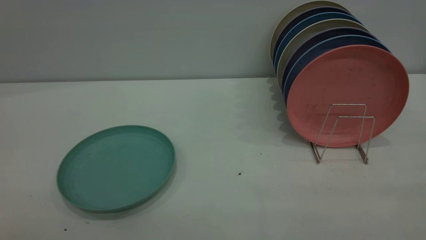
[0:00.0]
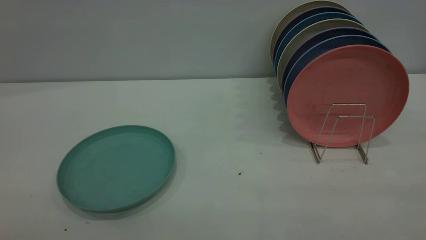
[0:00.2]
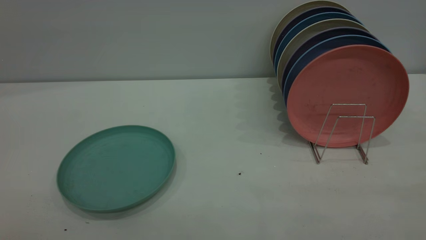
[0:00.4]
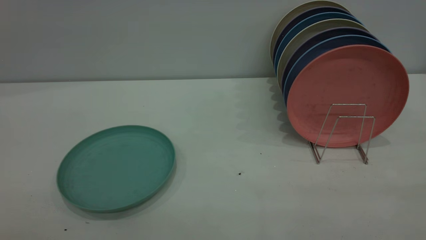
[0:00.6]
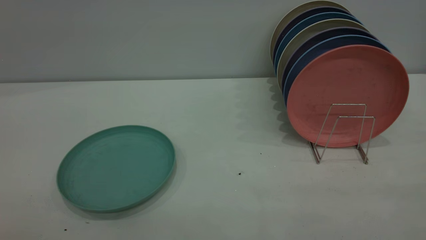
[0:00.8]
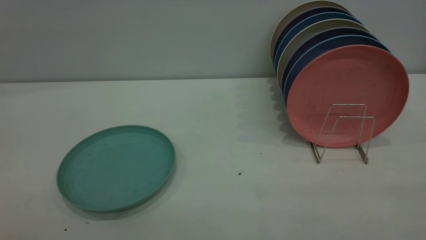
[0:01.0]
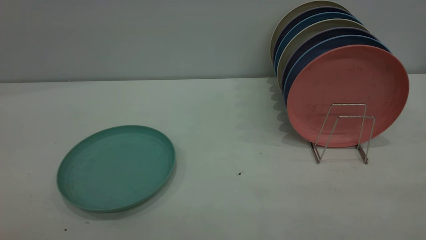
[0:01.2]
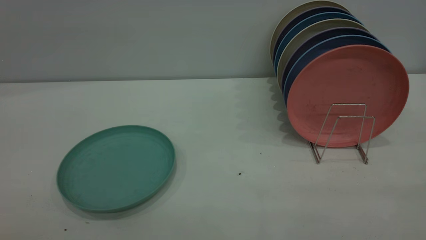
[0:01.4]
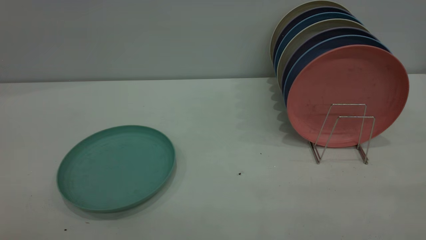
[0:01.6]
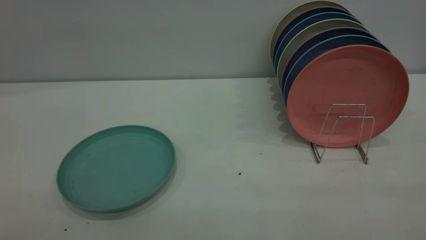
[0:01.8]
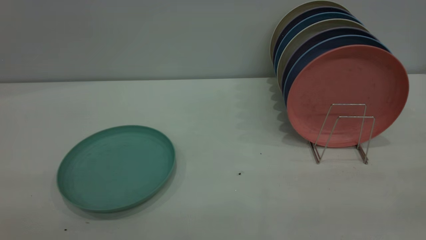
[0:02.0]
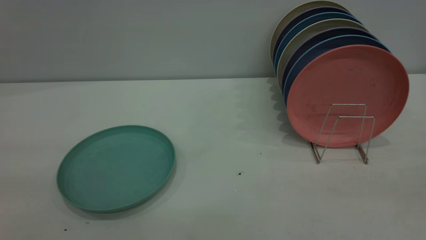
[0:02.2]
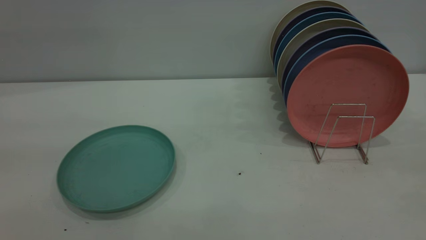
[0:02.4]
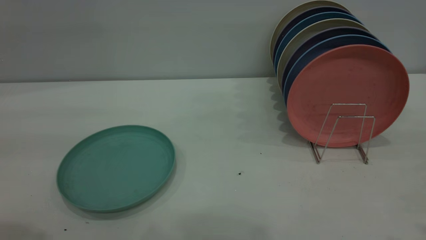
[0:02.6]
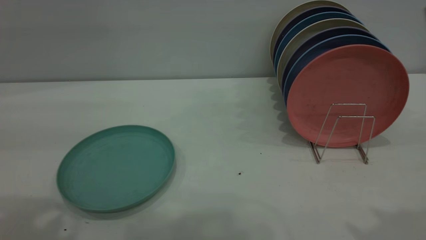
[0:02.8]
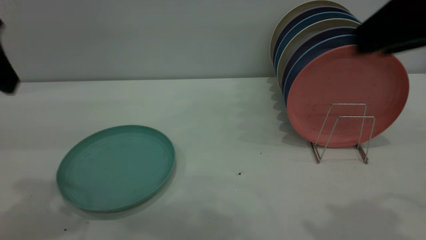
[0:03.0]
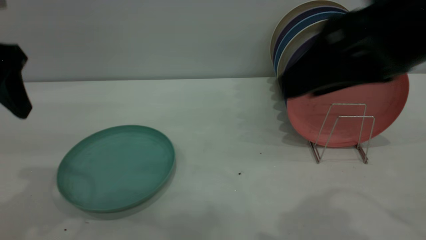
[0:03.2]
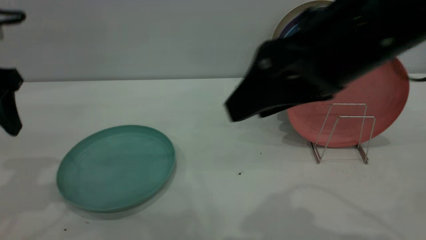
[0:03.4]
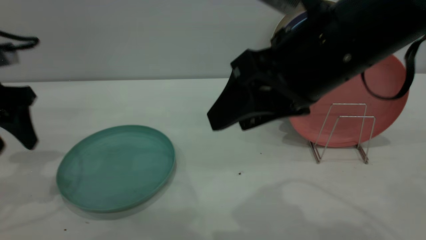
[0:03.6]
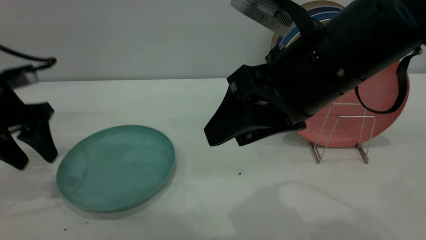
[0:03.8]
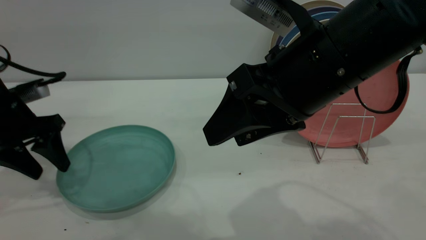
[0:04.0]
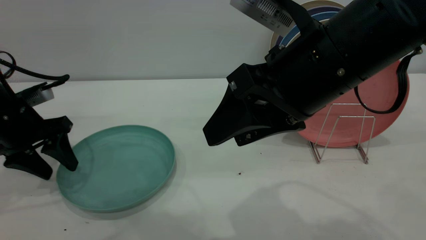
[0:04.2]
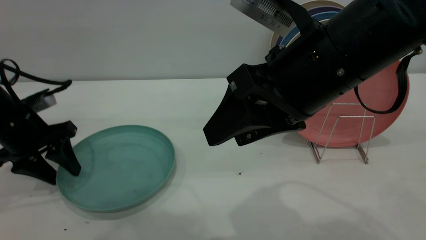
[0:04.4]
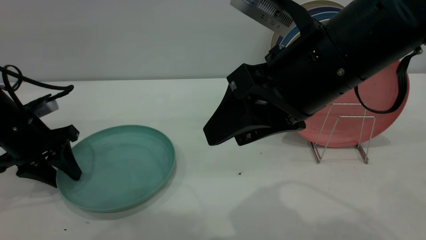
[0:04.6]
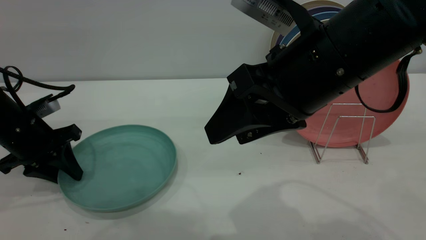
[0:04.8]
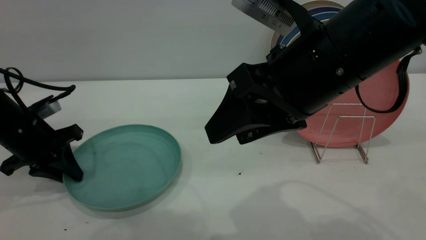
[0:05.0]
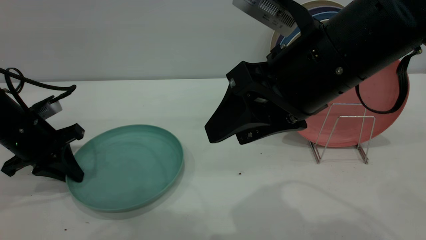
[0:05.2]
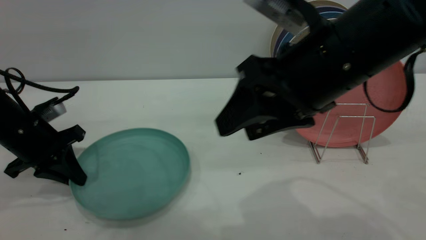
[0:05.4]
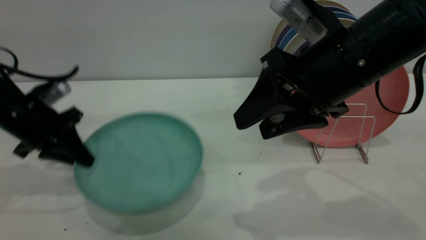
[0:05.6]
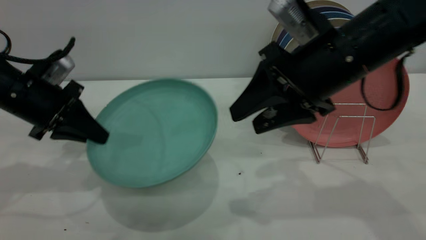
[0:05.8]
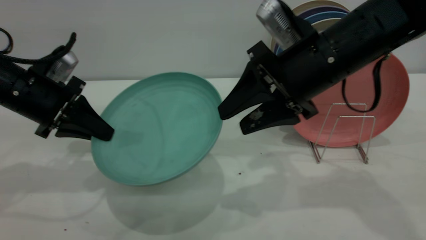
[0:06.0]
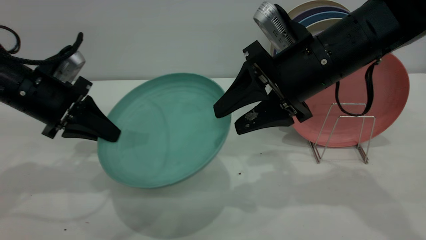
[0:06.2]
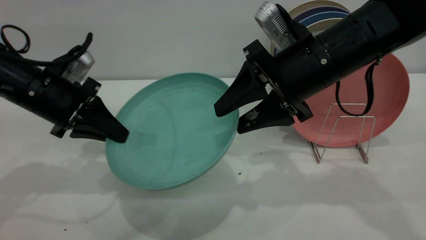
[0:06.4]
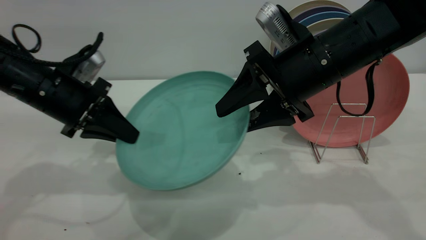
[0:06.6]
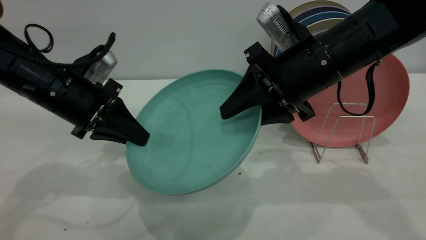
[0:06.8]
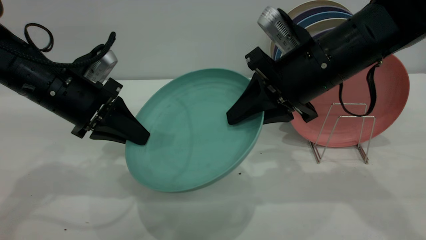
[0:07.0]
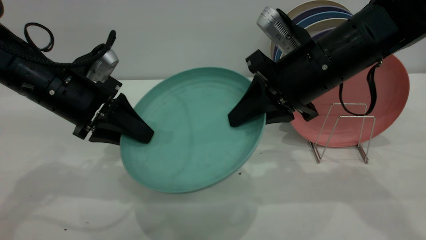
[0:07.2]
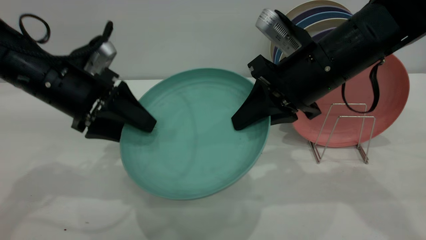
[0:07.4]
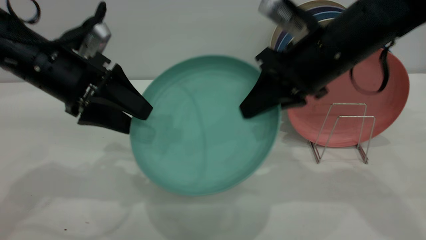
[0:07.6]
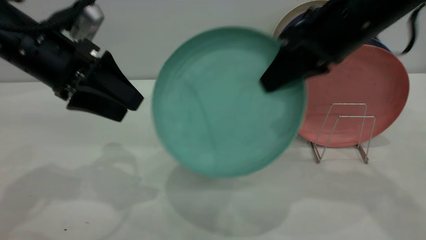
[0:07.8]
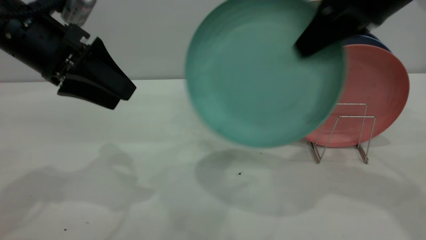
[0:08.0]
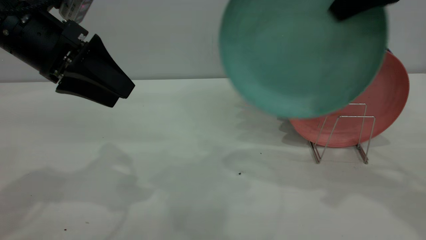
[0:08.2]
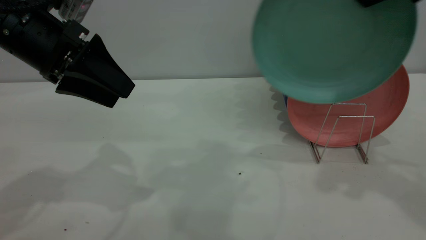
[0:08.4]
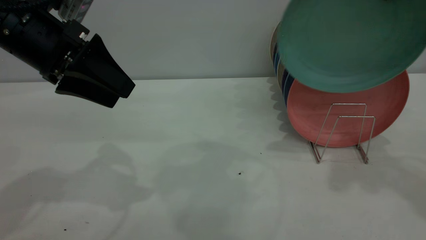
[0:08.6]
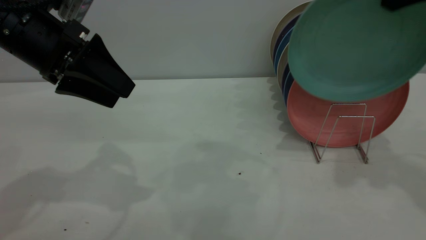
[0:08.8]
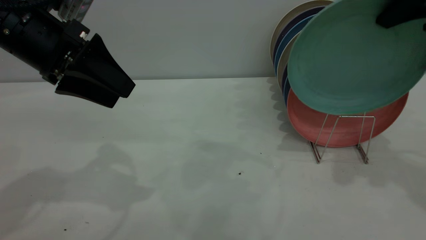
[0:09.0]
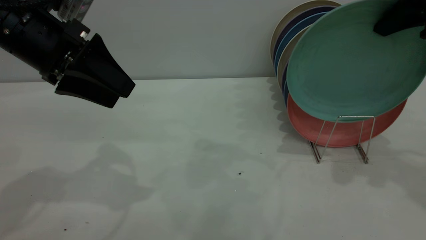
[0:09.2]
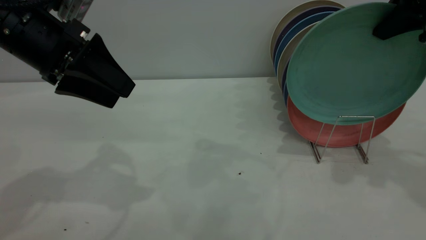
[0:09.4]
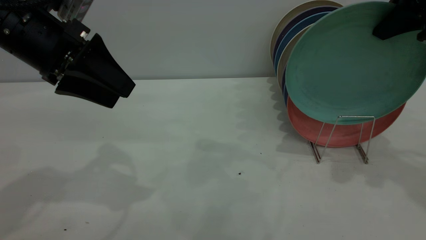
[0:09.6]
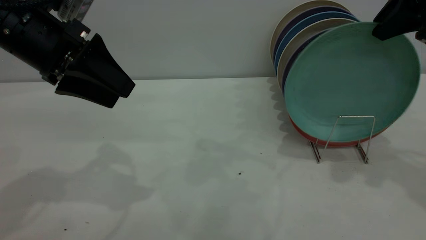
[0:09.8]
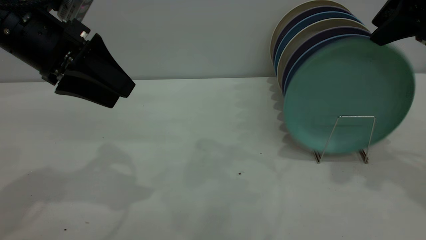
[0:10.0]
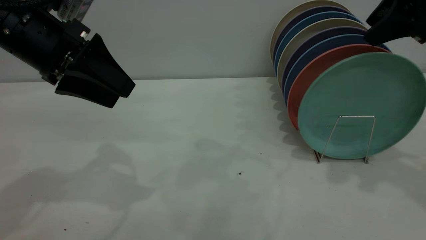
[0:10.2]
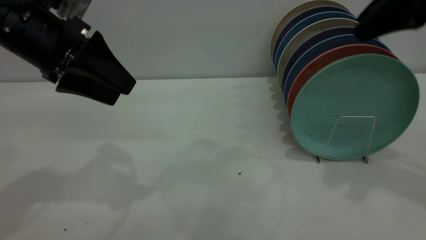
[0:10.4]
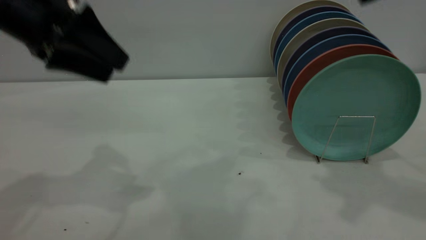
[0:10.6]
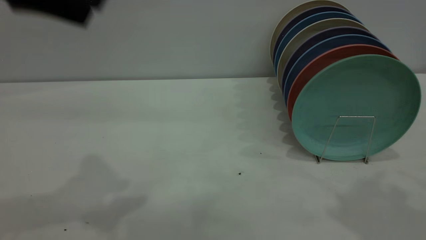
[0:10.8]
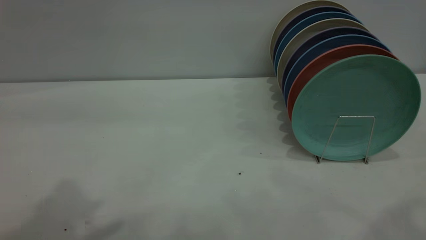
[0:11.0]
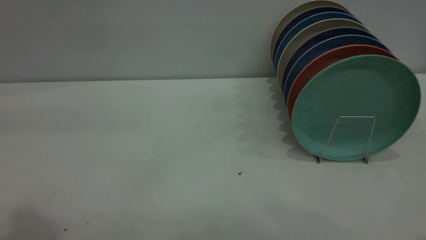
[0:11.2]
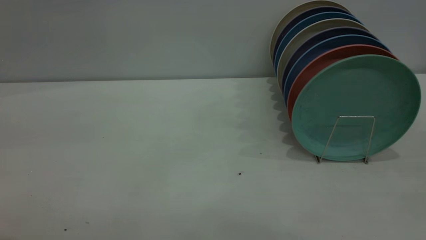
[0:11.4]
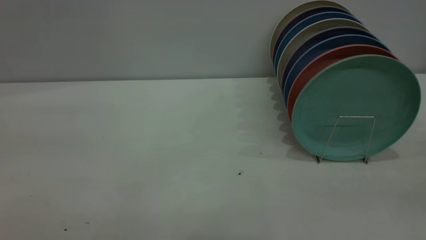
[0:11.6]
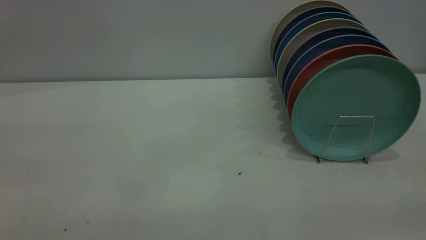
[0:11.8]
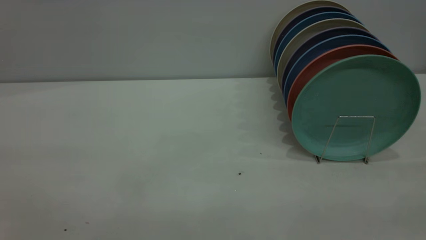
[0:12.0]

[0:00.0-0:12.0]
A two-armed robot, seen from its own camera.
Task of the whole recording: the left gripper grasp the green plate, the left gripper pass the green plate to the right gripper, and the right gripper place the green plate on the plate rack.
Step, 0:00.0 to 0:05.4: Pick up the plate with the left gripper.
Step, 0:05.8 to 0:07.6: Pass the plate from the left gripper to the right gripper.
Step, 0:08.0 to 0:10.4: Place the plate on the shelf.
0:00.0 to 0:01.6: Neither gripper changes place.
0:01.6 to 0:03.0: The right gripper shifts roughly 25 cm forward and to the left, while the left gripper travels forward by approximately 30 cm.
0:03.0 to 0:04.4: The left gripper heads downward and forward, covering about 20 cm. Meanwhile the right gripper moves to the left and downward, about 10 cm.
0:04.4 to 0:06.0: The right gripper is displaced forward by roughly 10 cm, while the left gripper ends up approximately 5 cm from where it was, and closes up.
0:06.0 to 0:07.6: The right gripper closes. Meanwhile the left gripper heads to the right, covering some 5 cm, and opens.
0:07.6 to 0:09.0: The right gripper shifts about 15 cm to the right and upward.
0:09.0 to 0:10.4: The right gripper opens.
0:10.4 to 0:12.0: Both grippers move backward, some 25 cm.
